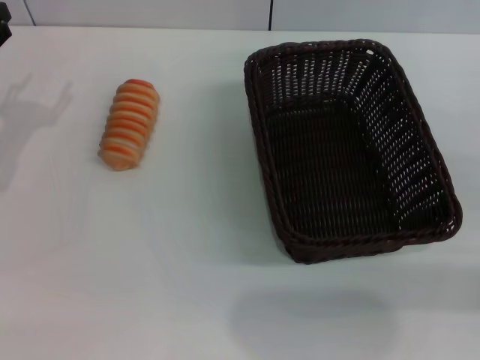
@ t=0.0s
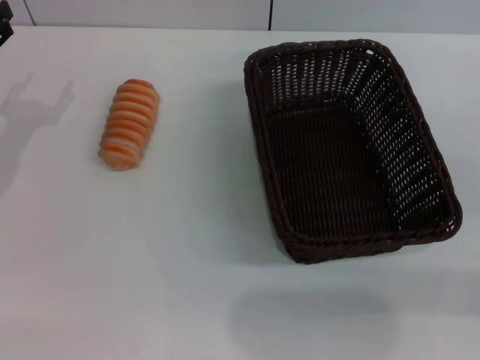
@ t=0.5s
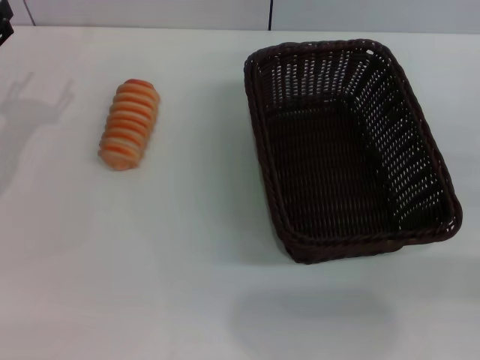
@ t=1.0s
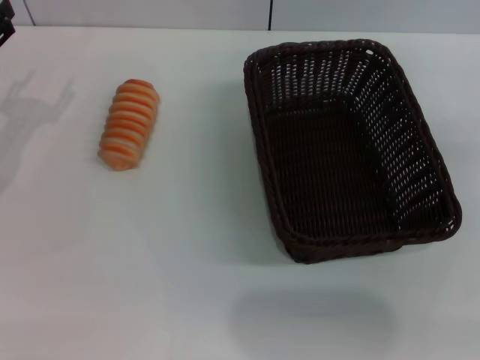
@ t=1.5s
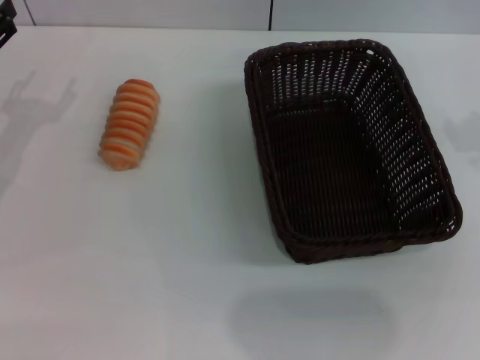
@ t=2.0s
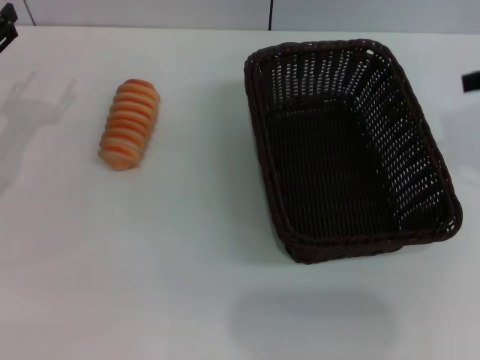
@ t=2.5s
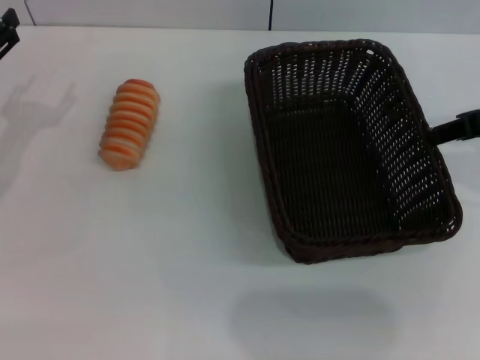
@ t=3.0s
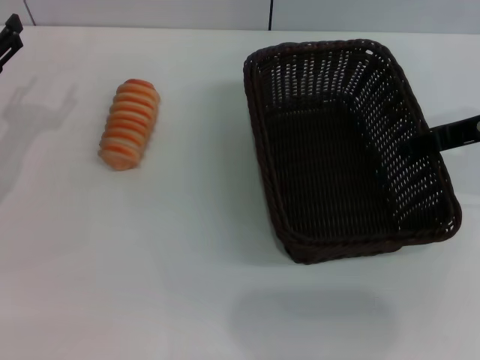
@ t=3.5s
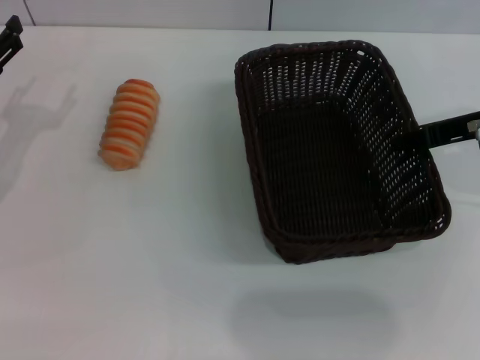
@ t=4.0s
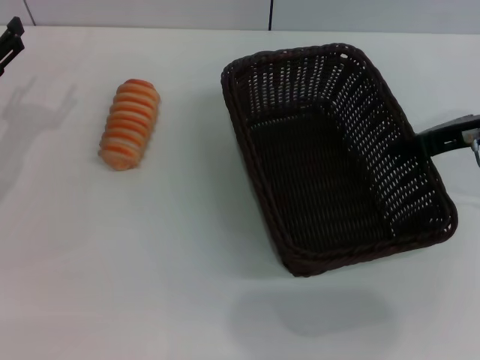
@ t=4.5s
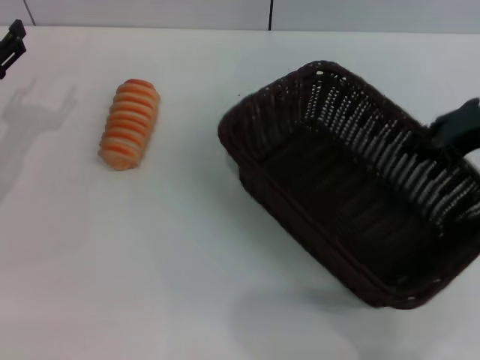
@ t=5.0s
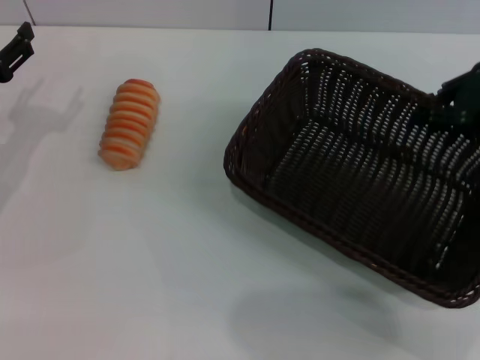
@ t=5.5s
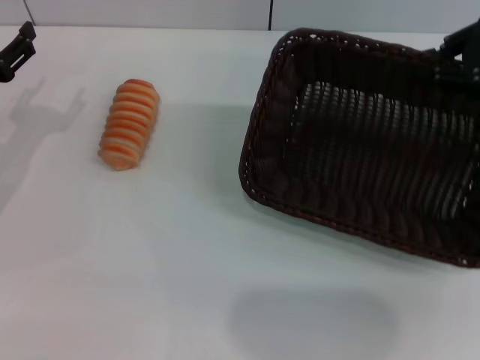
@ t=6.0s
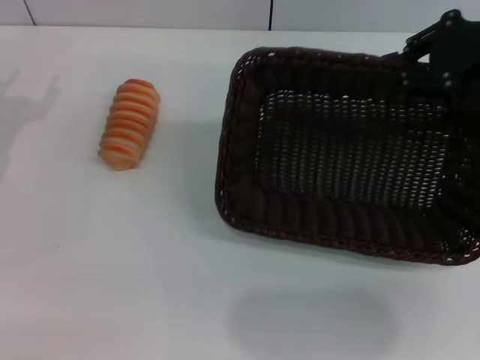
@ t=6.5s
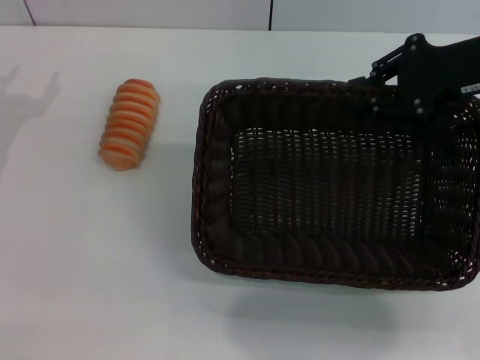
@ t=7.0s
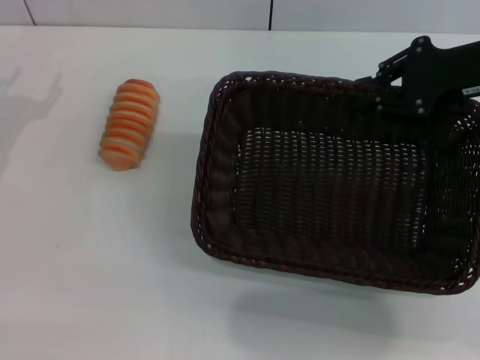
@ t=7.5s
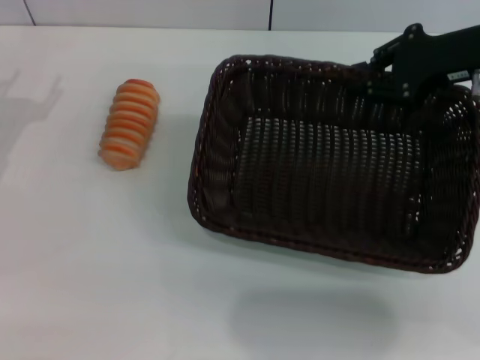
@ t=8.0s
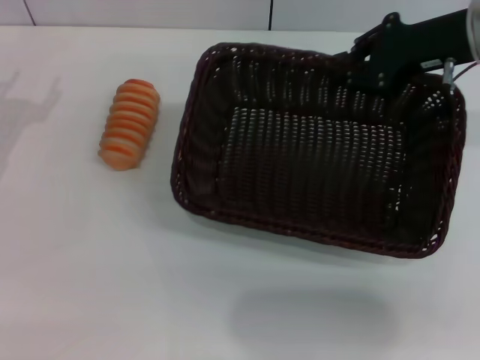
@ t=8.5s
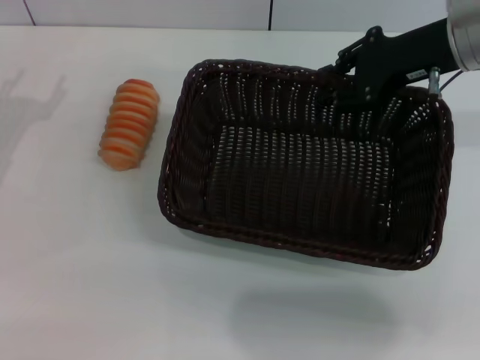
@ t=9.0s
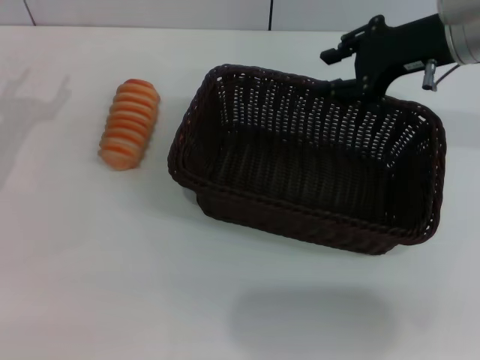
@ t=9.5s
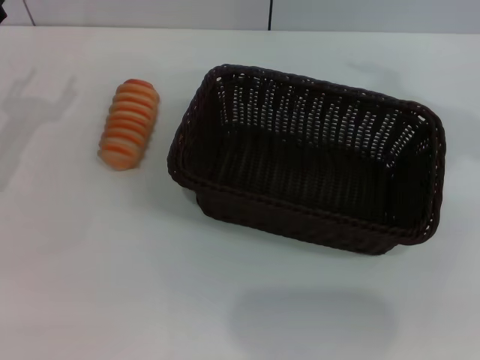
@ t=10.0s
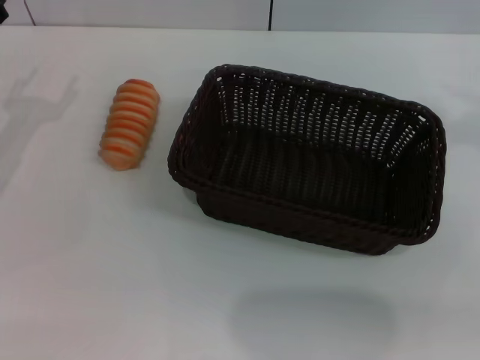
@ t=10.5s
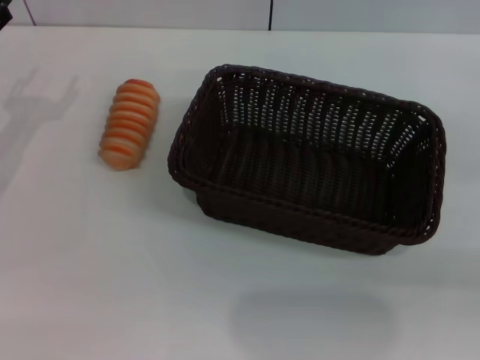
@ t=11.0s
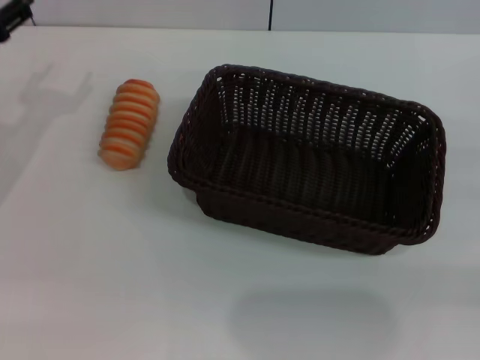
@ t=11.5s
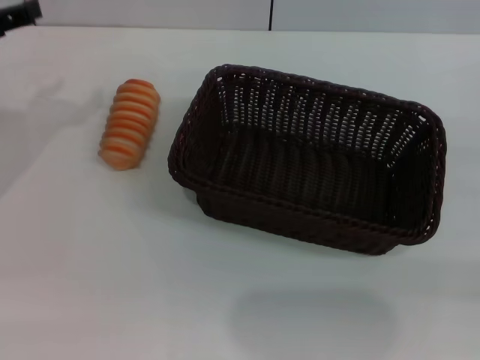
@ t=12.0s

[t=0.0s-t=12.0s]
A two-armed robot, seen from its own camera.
Step, t=0.0s to t=6.0s: Pick up the dark basket with the right gripper.
Step, t=6.5s to t=9.0s: Place the dark basket in the center of view with the right gripper.
t=2.0s to t=4.0s: The right gripper shifts roughly 10 cm downward.
t=4.0s to t=6.0s: The right gripper travels upward by about 5 cm, and closes.
t=6.0s to t=8.0s: The right gripper moves some 5 cm.
t=8.0s to t=10.0s: The right gripper shifts some 5 cm upward, and opens up.
t=10.0s to t=12.0s: The left gripper moves upward, approximately 10 cm.

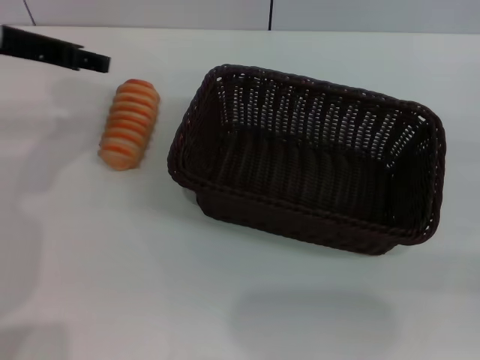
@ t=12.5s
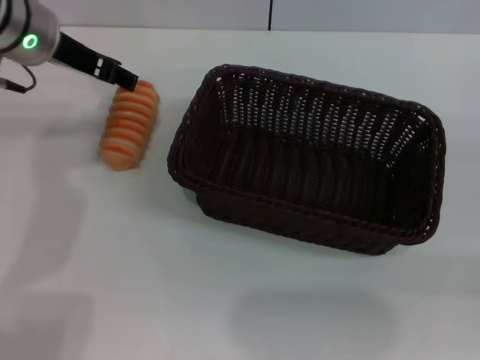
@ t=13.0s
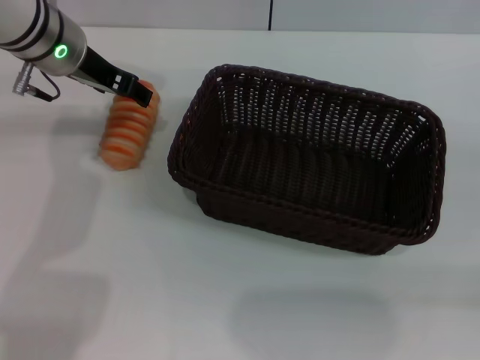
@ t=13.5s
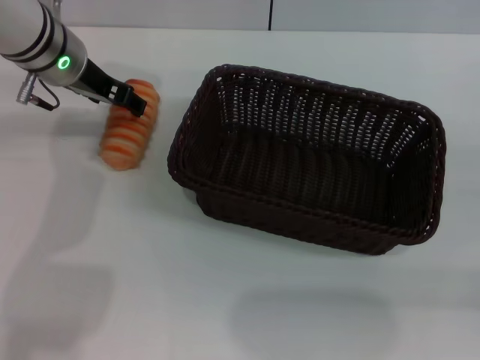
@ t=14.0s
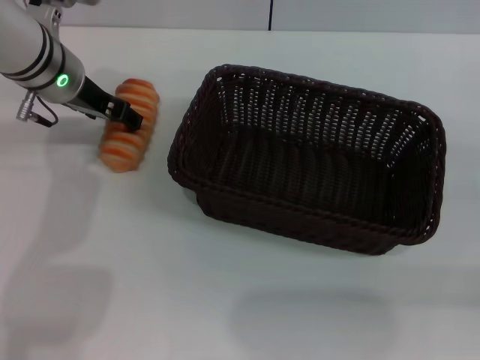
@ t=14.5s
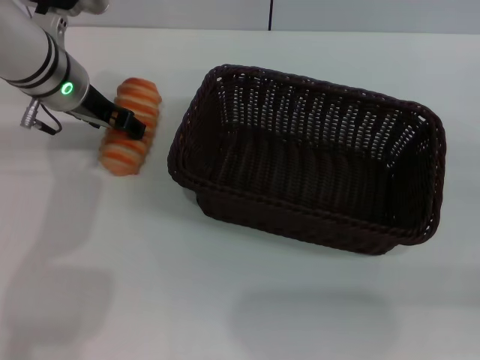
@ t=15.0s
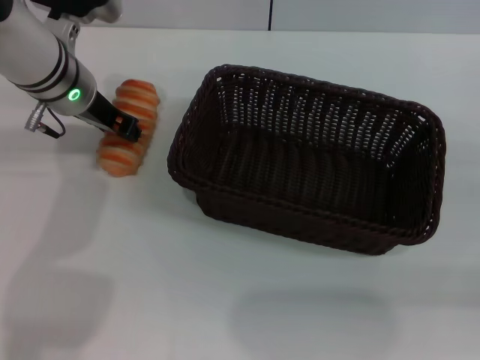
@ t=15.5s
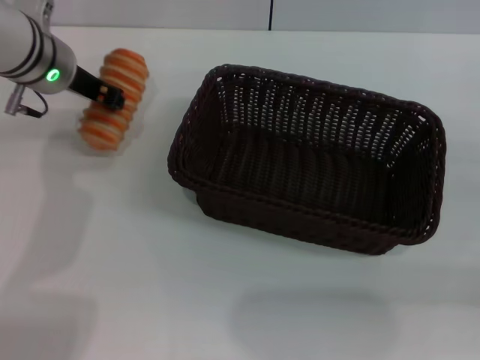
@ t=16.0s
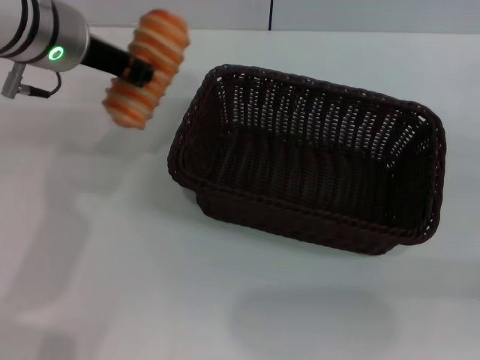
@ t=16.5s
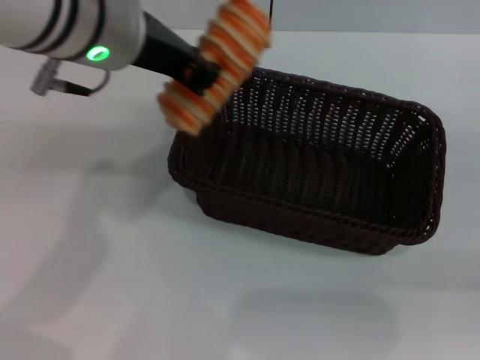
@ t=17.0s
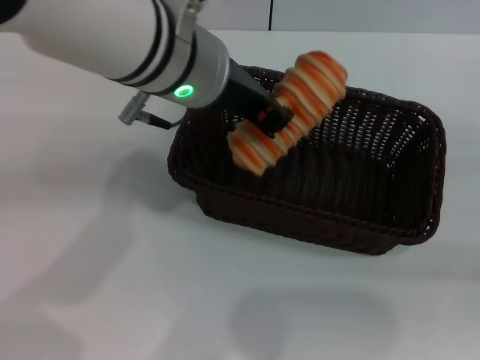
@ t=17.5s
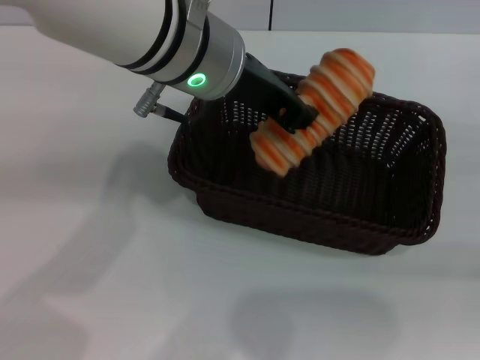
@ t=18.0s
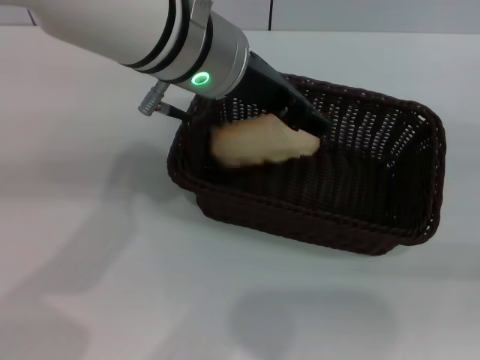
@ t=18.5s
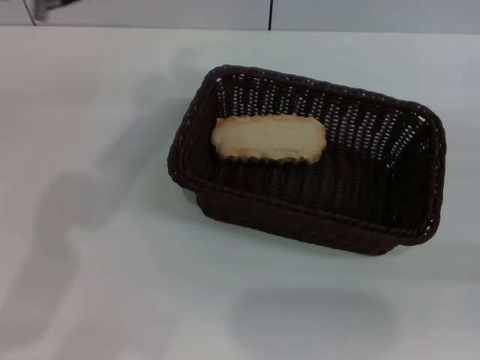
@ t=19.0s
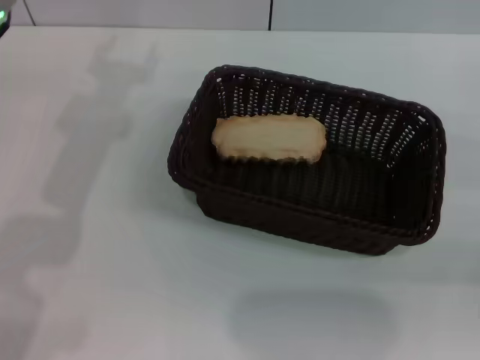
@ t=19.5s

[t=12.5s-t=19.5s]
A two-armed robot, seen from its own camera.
Step, t=12.5s to t=16.5s: Pick up the long bread with the left gripper.
Step, t=17.0s to t=18.0s: Place the long bread into the dark basket with the left gripper.
t=12.5s to t=14.5s: The left gripper is displaced downward and forward by approximately 10 cm.
t=14.5s to t=16.0s: The left gripper closes.
t=16.0s to t=17.5s: The left gripper is displaced to the right, backward and upward by roughly 20 cm.
t=17.5s to t=19.5s: The left gripper shifts roughly 15 cm to the left, and opens up.

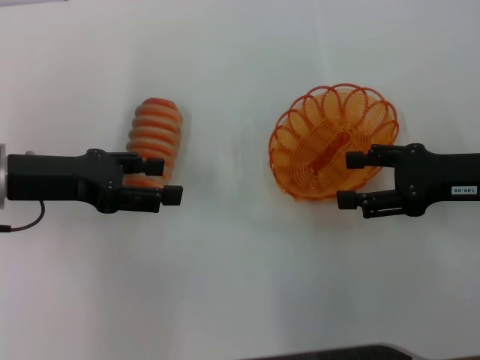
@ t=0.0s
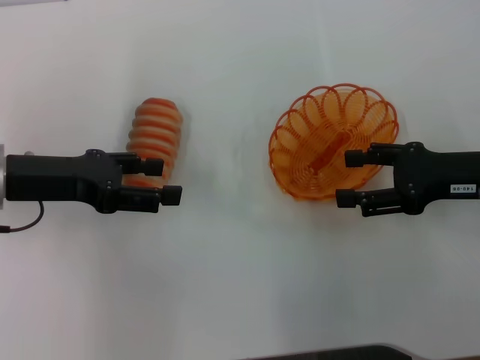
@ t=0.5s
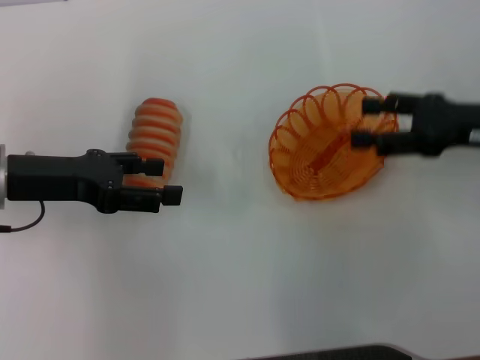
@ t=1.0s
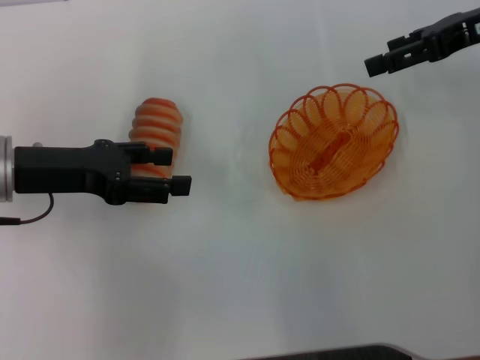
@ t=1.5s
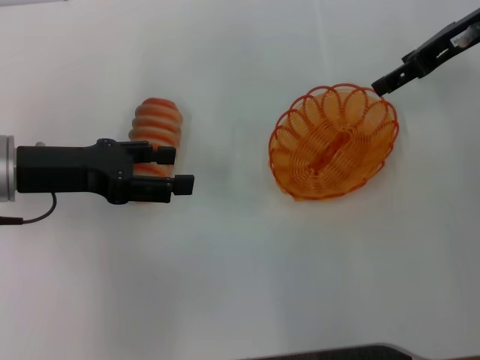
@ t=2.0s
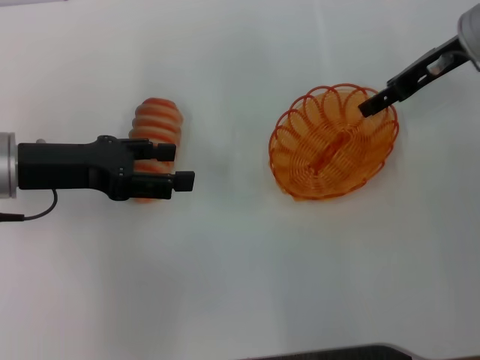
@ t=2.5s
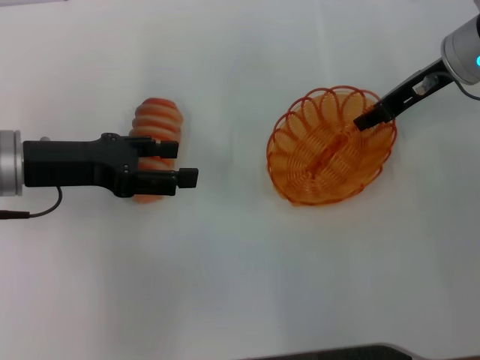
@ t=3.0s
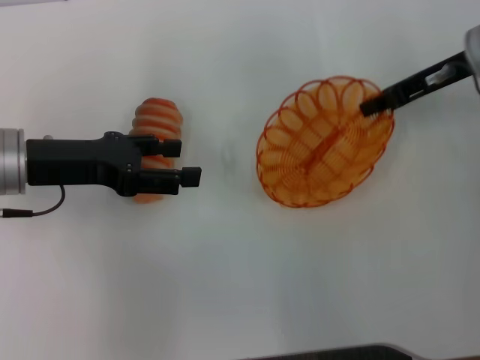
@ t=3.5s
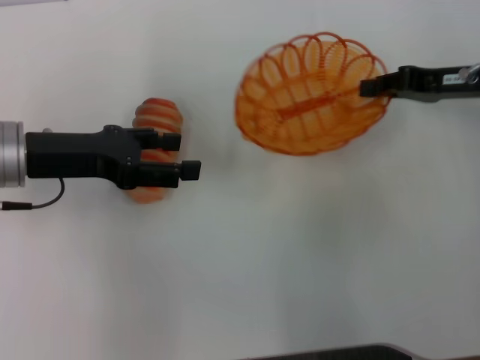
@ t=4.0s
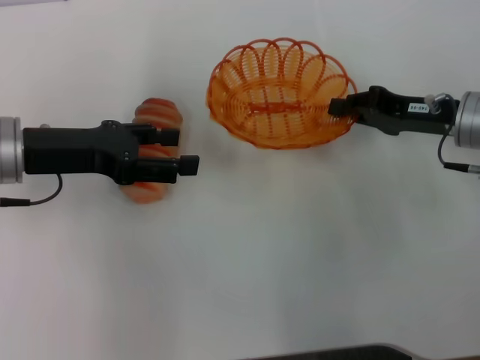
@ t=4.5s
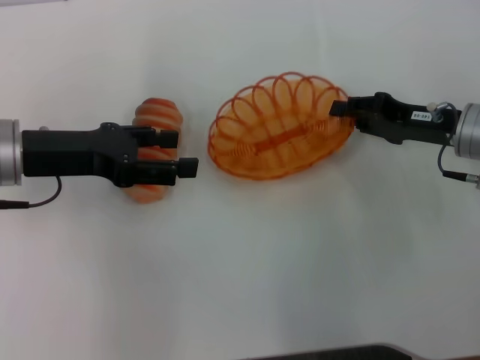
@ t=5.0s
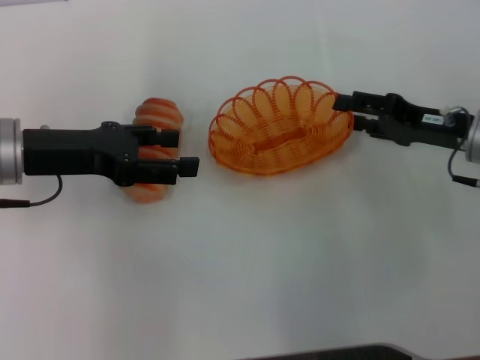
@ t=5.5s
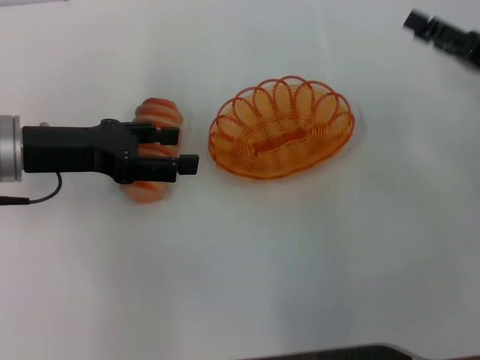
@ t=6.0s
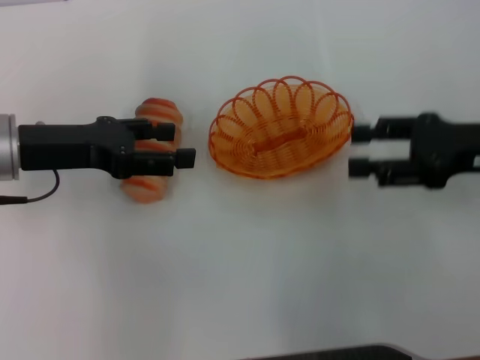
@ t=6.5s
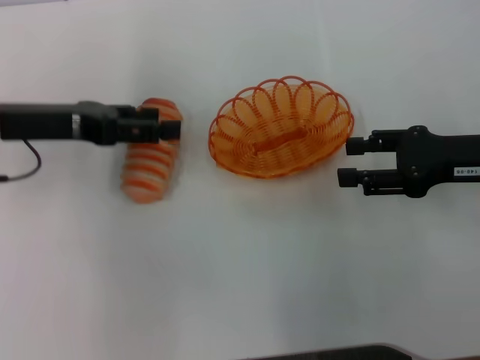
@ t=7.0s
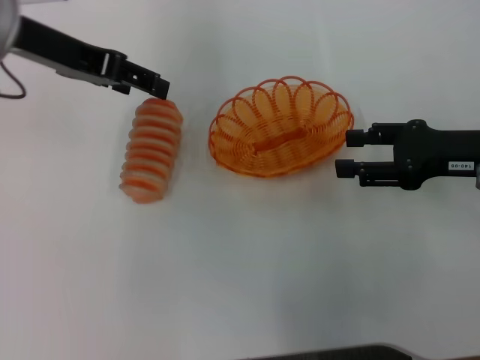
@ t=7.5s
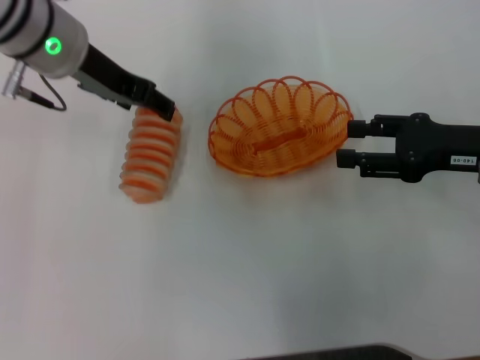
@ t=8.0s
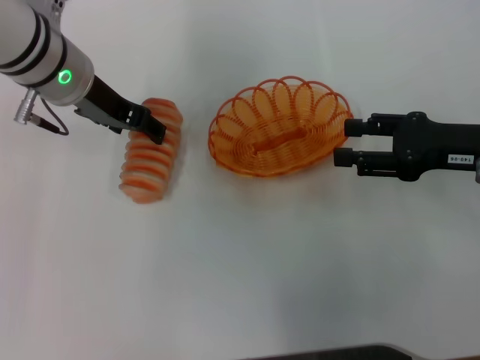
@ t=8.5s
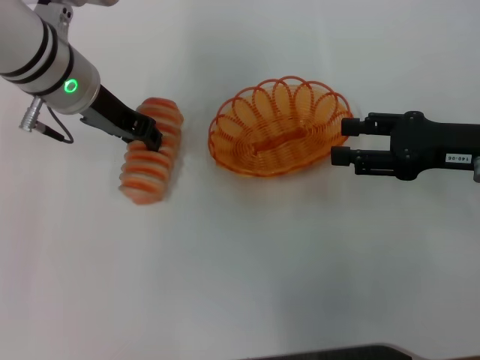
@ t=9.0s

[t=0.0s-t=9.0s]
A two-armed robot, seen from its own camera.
Step, t=0.0s to t=3.5s: Pick up the basket with the right gripper.
Step, t=4.0s to t=5.5s: Place the basket in the center of view with the right gripper.
t=0.0s to t=2.0s: The right gripper heads forward and upward, covering roughly 15 cm.
t=2.0s to t=4.5s: The right gripper shifts some 15 cm downward and backward, and closes up.
t=4.5s to t=7.0s: The right gripper is displaced backward by roughly 5 cm, and opens its fingers.
t=7.0s to t=9.0s: The left gripper travels to the right and forward by roughly 10 cm, and closes up.
